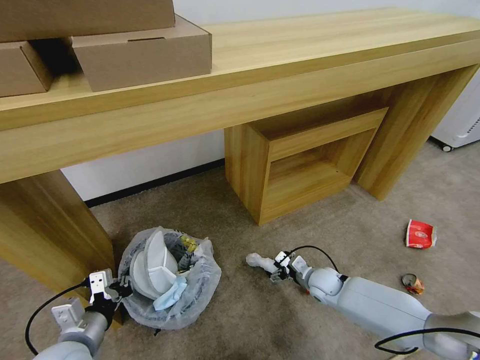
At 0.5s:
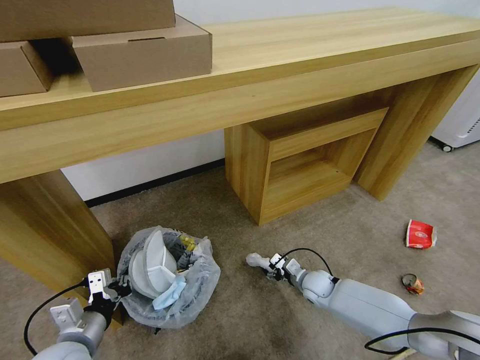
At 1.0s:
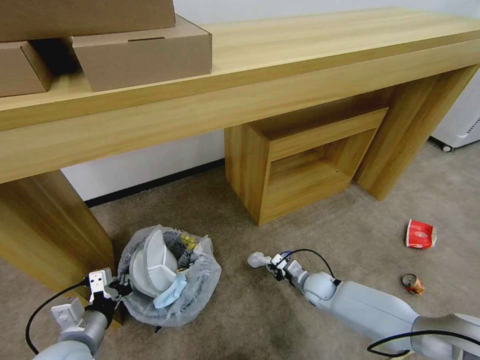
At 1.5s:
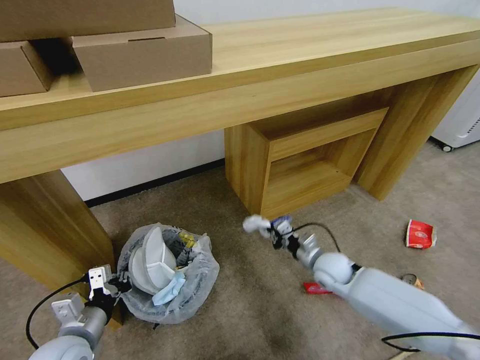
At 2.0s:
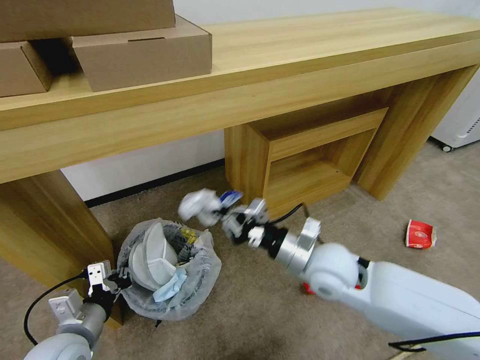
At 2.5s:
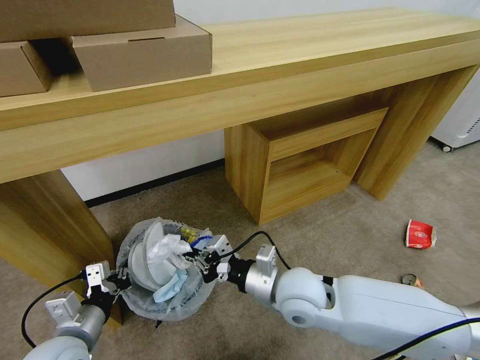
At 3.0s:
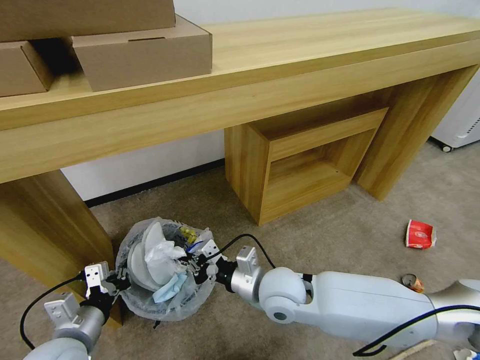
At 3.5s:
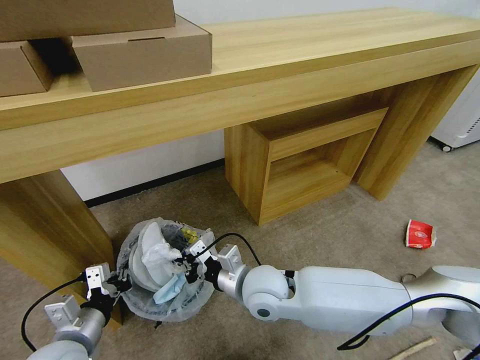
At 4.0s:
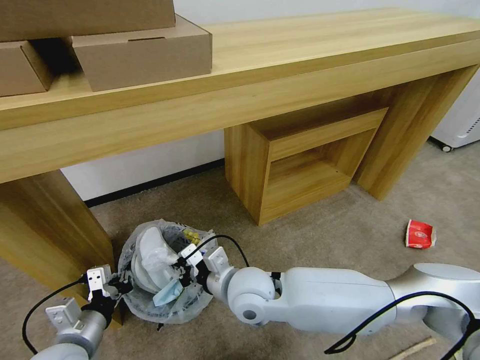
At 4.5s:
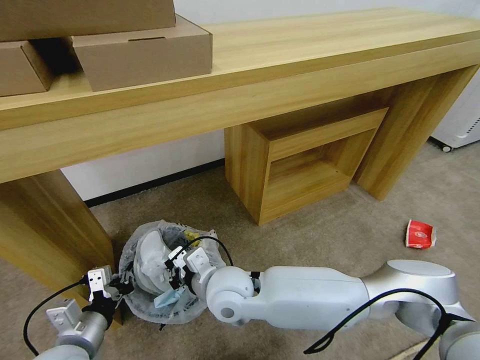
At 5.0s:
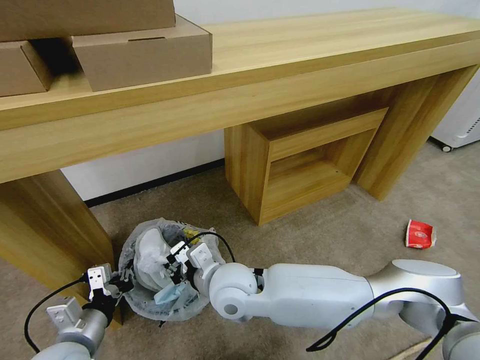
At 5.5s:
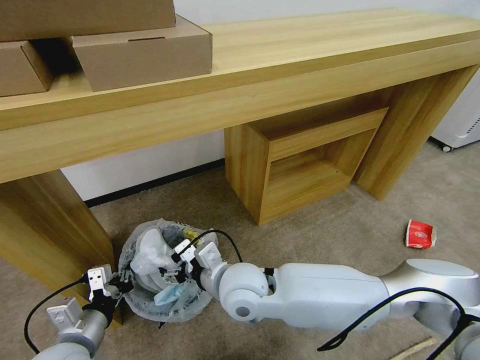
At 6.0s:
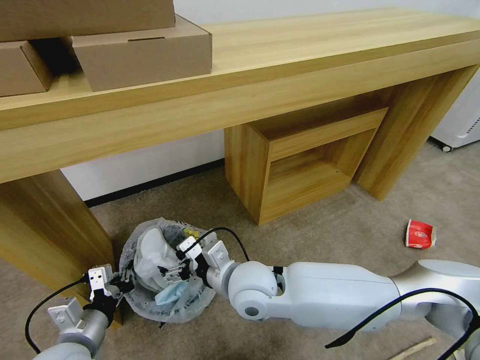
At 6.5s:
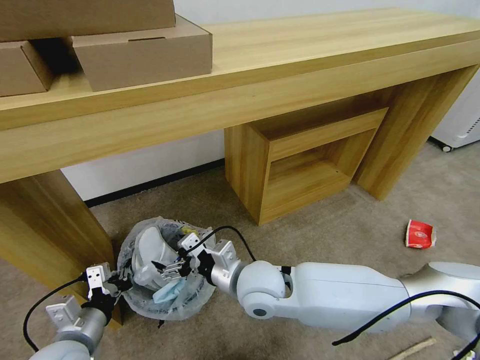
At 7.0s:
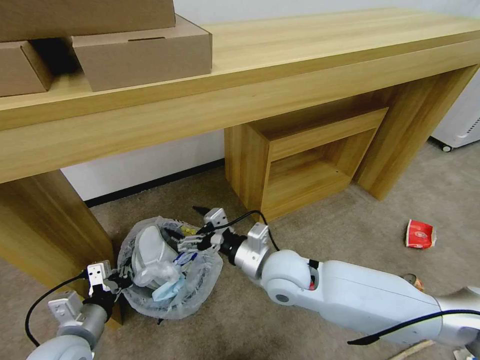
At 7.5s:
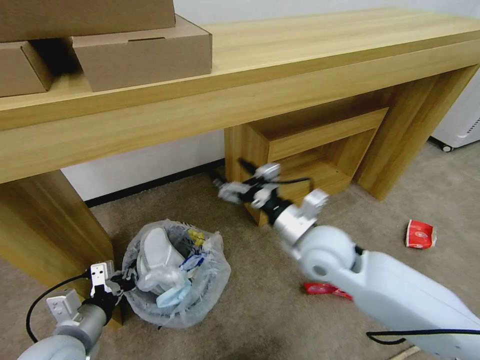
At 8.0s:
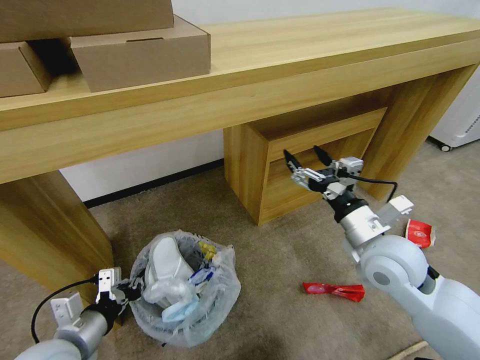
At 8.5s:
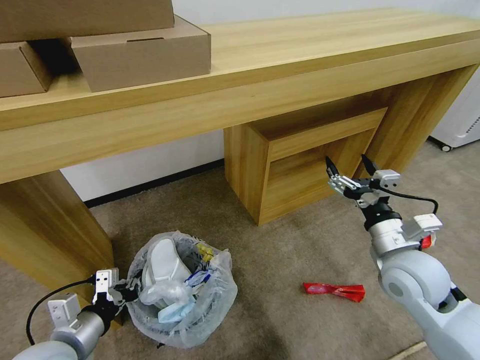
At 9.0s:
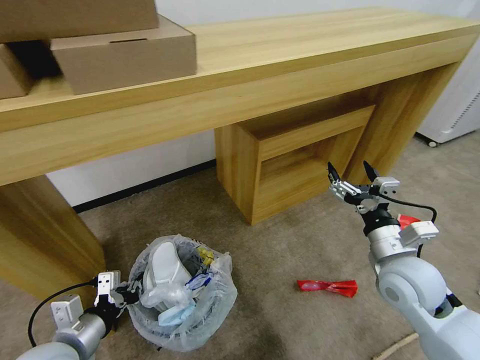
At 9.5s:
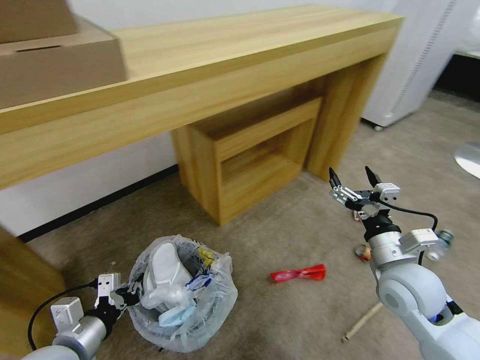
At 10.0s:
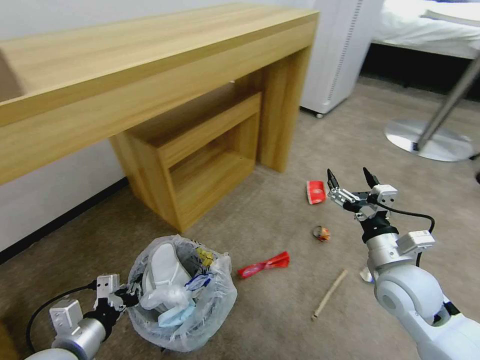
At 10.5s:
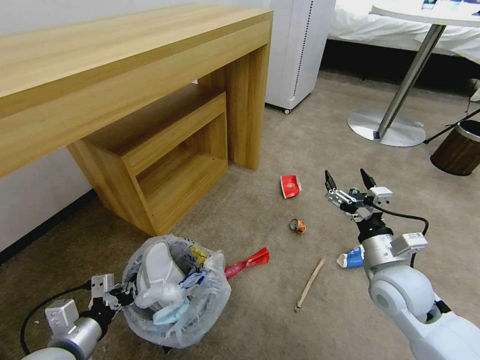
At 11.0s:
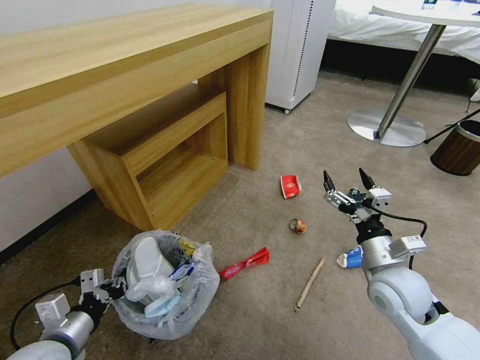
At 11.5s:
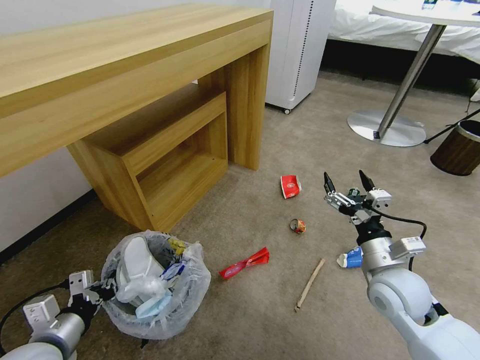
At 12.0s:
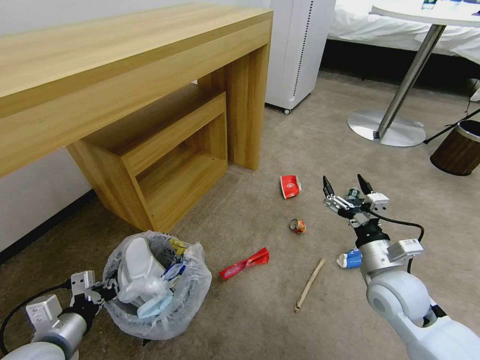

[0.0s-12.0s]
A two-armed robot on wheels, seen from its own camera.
Task of the whole recording: Pick up the trash bin and place the garbage on the floor into it.
0.0s to 2.0s: The right gripper goes roughly 25 cm upward, and closes.
2.0s to 4.0s: The right gripper heads to the left, covering about 15 cm.
4.0s to 6.0s: The right gripper opens its fingers.
6.0s to 8.0s: The right gripper goes about 25 cm to the right.
8.0s to 10.0s: The right gripper shifts roughly 5 cm downward.

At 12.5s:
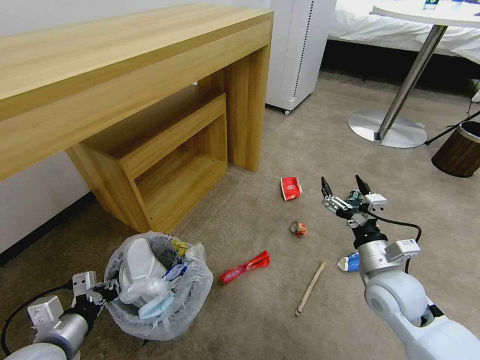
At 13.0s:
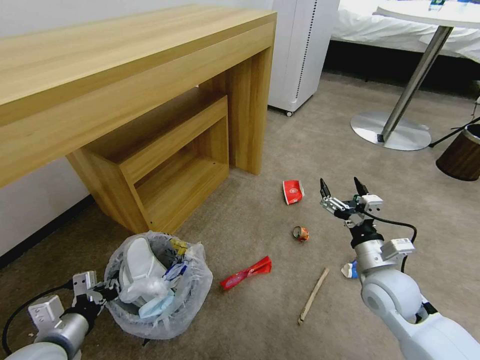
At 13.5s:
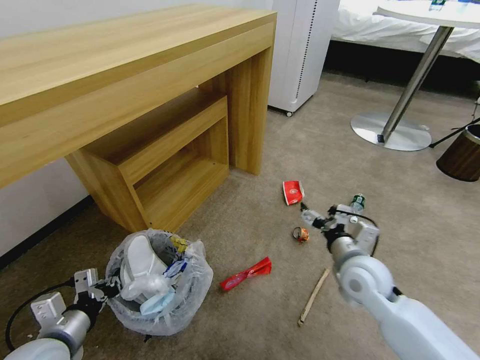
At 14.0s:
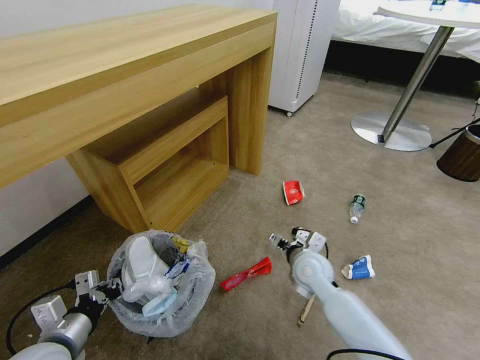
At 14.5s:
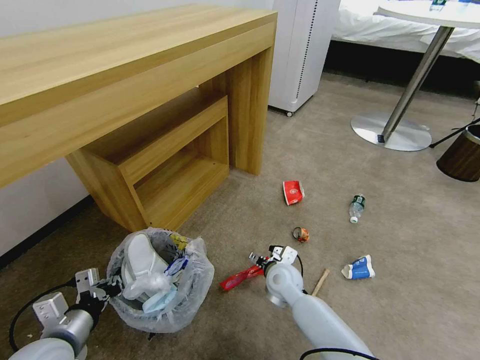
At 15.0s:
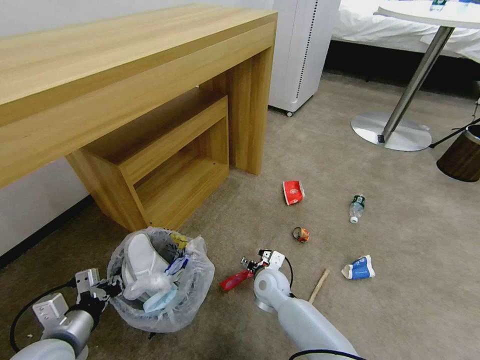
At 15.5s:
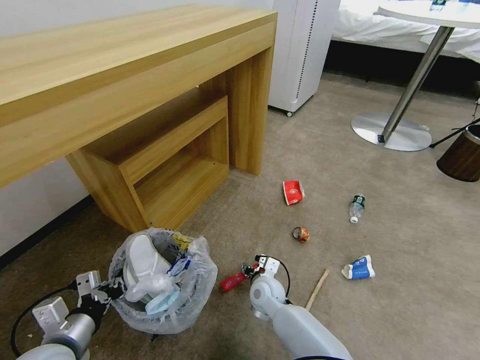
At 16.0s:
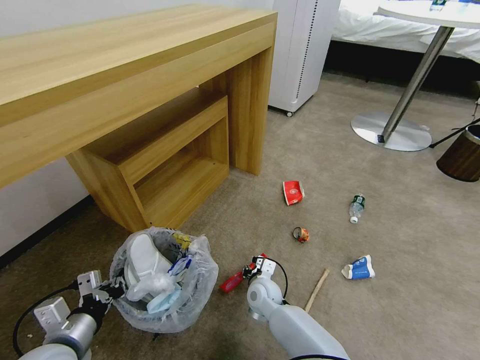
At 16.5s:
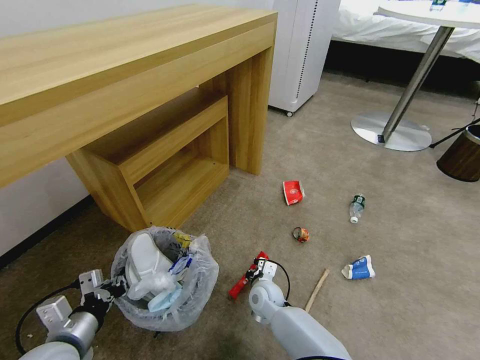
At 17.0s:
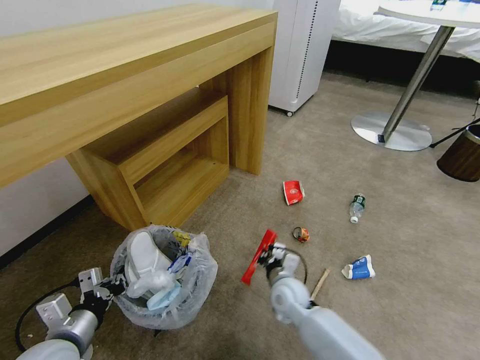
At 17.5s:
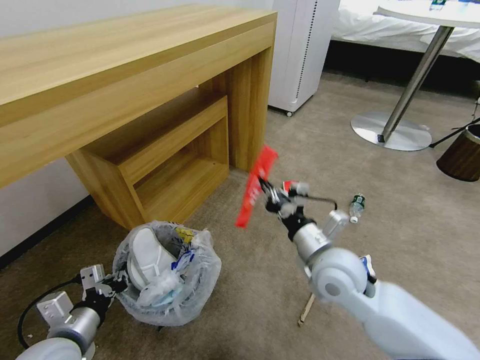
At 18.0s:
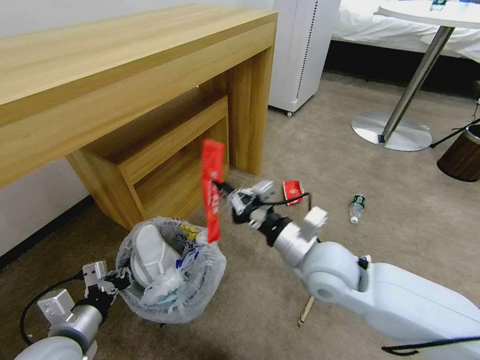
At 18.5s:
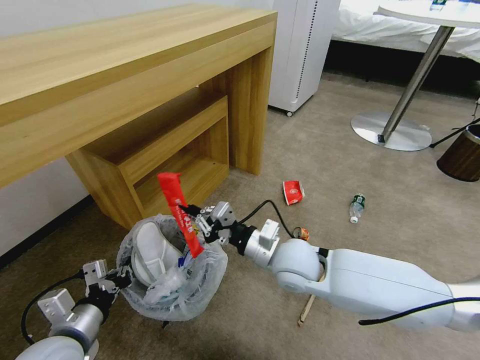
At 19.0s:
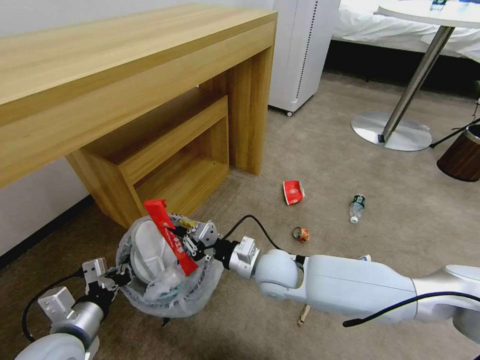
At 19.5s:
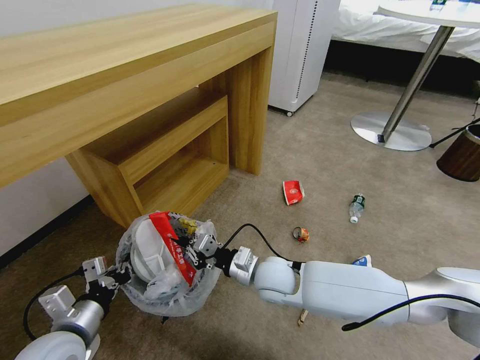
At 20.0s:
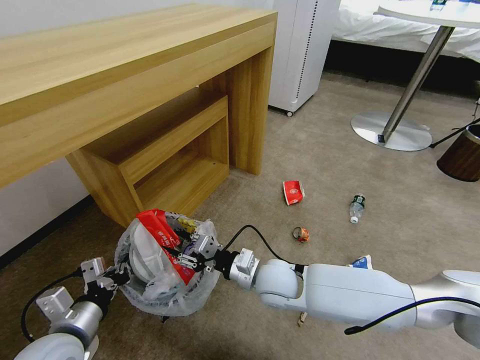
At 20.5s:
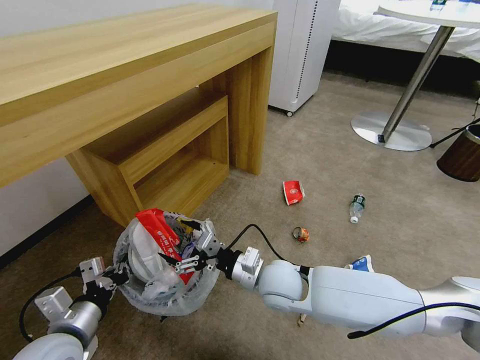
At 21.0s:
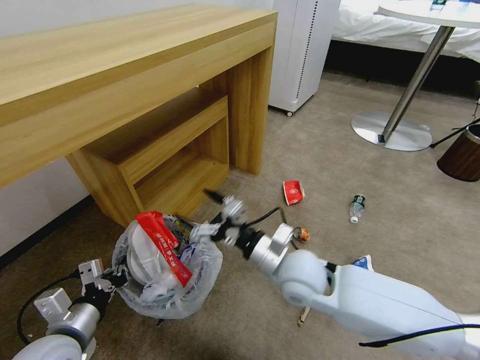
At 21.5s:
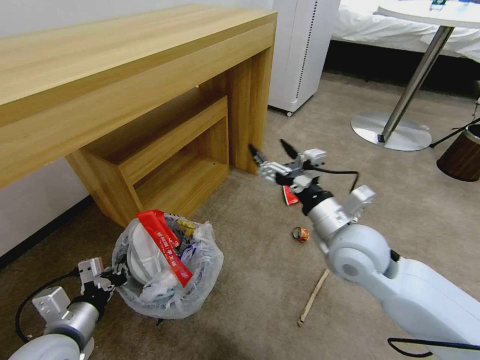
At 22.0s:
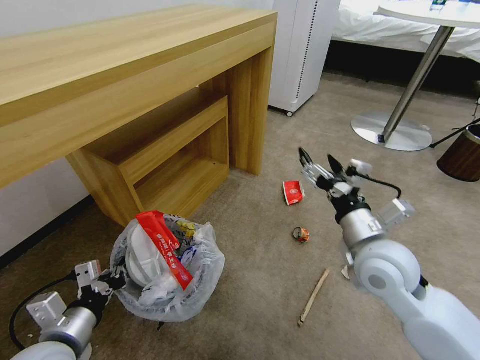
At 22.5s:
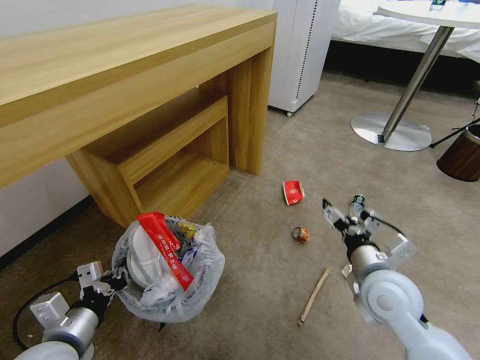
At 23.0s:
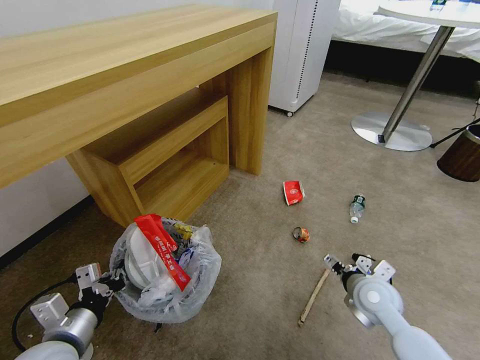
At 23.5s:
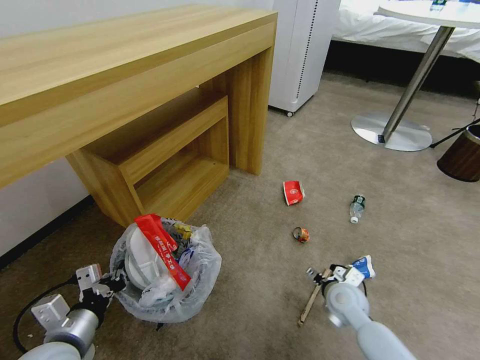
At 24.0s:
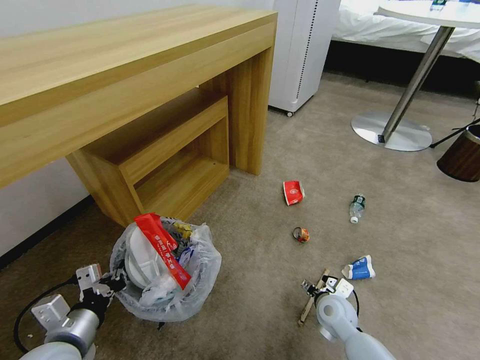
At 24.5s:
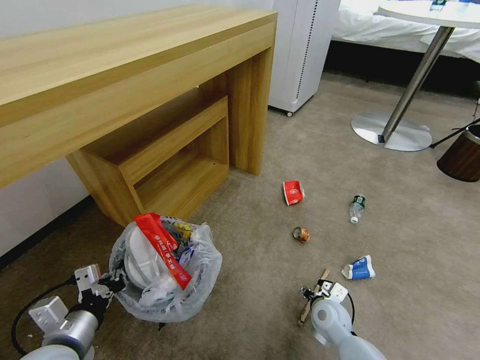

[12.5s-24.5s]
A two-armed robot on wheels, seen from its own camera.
Task of the whole recording: Pick up the trash bin and place the garbage on the floor into it.
12.5s to 14.5s: The right gripper travels to the left, downward and forward by some 25 cm.
14.5s to 16.5s: The right gripper goes roughly 5 cm downward, and closes.
16.5s to 18.5s: The right gripper moves upward, approximately 25 cm.
18.5s to 20.5s: The right gripper heads downward, covering approximately 5 cm, and opens.
20.5s to 22.5s: The right gripper travels to the right by some 20 cm.
22.5s to 24.5s: The right gripper moves downward, some 20 cm, and closes its fingers.

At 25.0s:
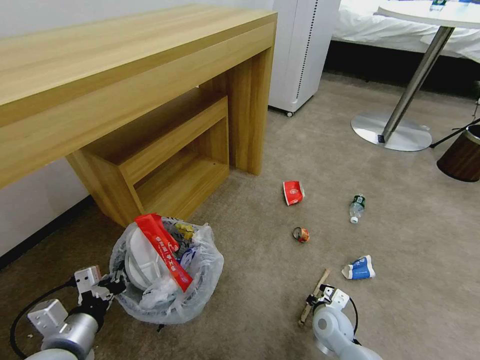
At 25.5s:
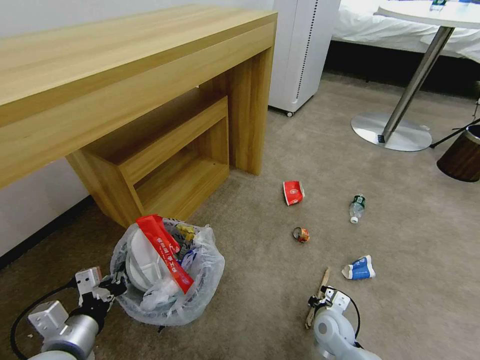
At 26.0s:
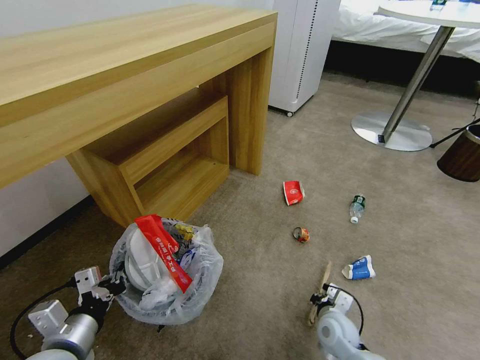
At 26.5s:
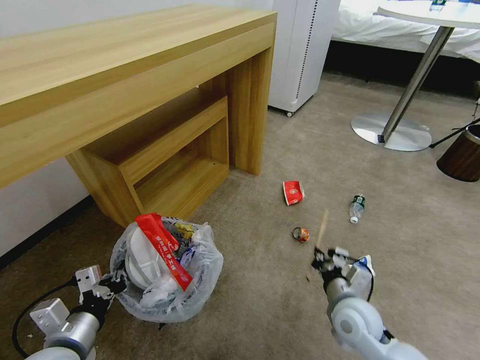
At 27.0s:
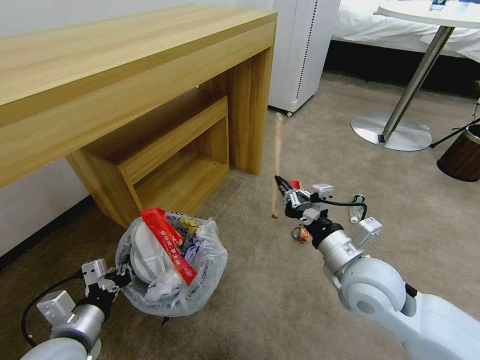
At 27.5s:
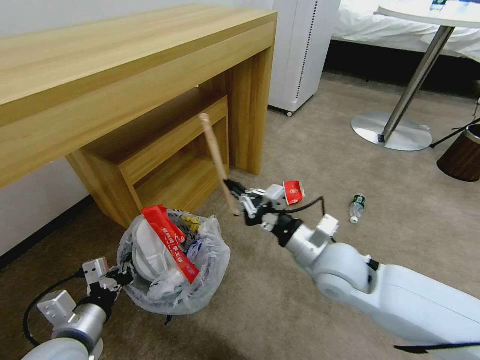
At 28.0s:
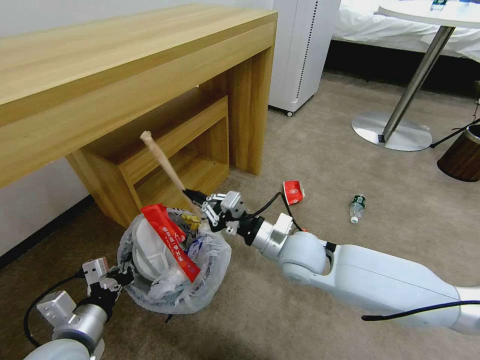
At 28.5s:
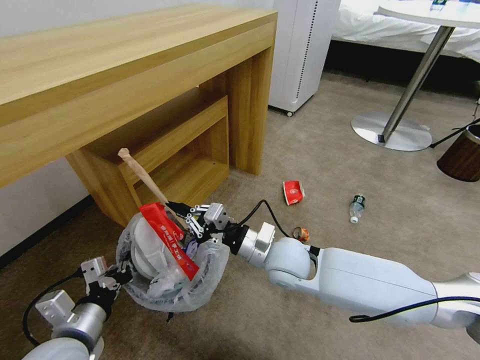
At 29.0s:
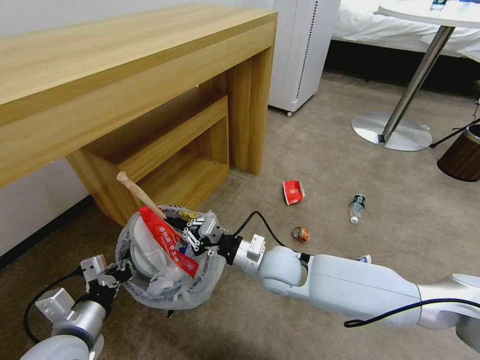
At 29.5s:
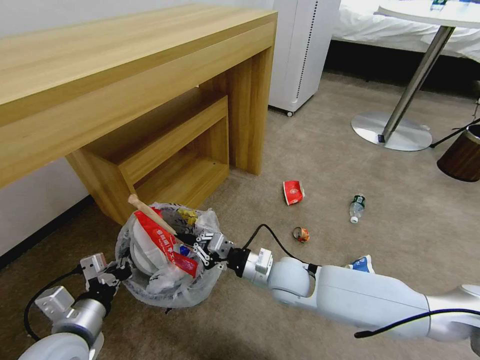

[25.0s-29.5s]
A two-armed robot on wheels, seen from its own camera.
Task of the whole recording: Pick up the trash bin and place the garbage on the floor into it.
25.0s to 27.0s: The right gripper heads upward, covering some 25 cm.
27.0s to 29.5s: The right gripper moves downward, to the left and forward, some 15 cm.
